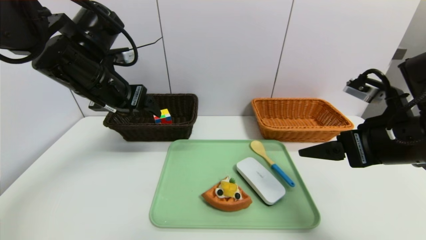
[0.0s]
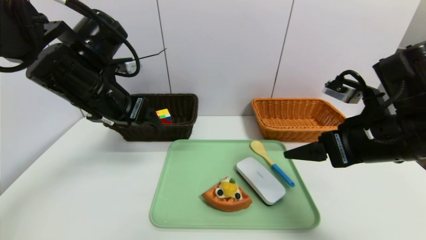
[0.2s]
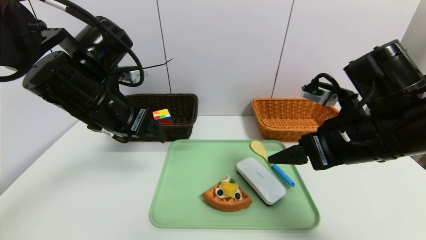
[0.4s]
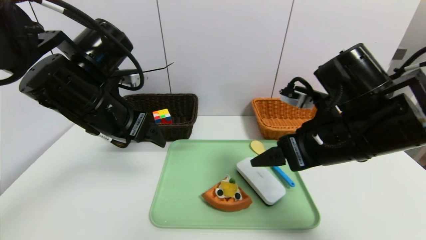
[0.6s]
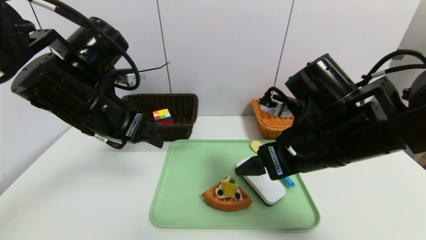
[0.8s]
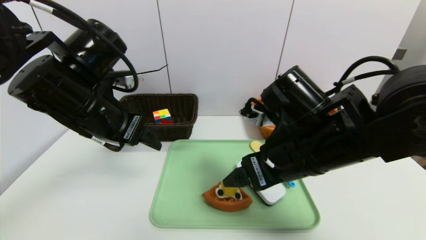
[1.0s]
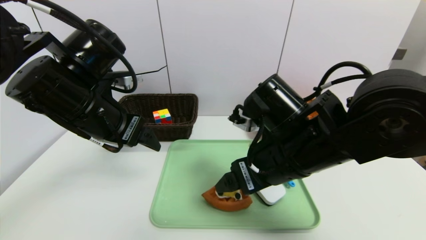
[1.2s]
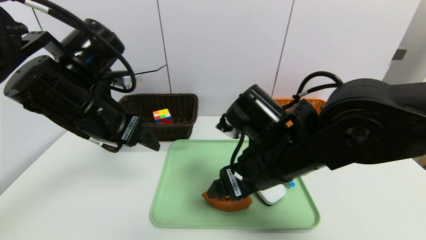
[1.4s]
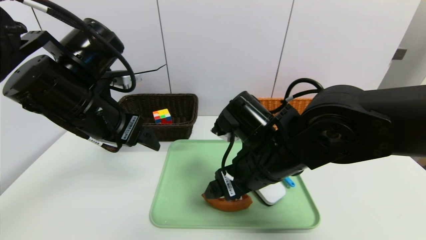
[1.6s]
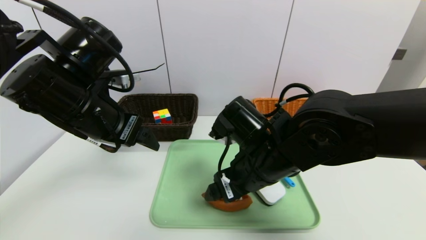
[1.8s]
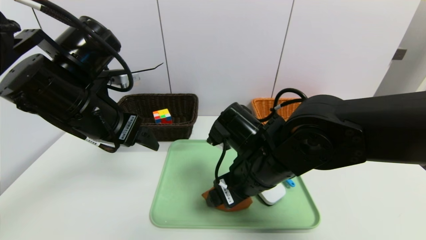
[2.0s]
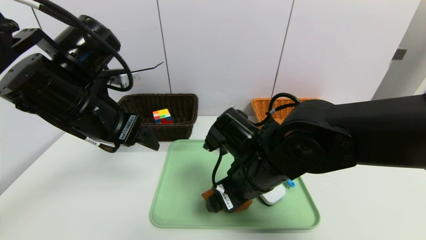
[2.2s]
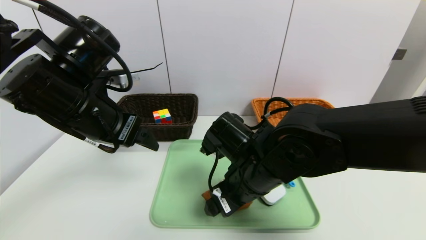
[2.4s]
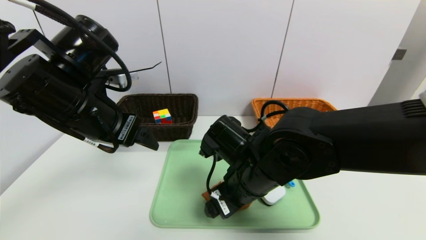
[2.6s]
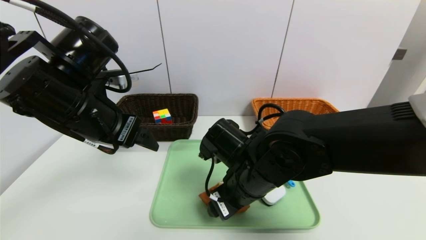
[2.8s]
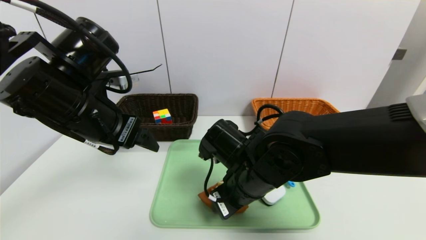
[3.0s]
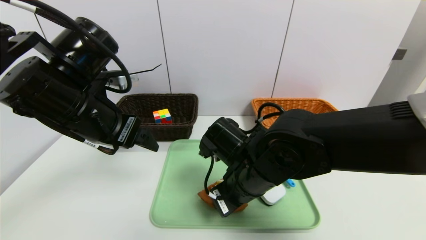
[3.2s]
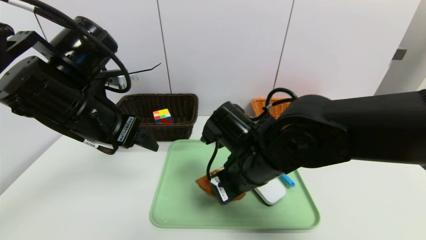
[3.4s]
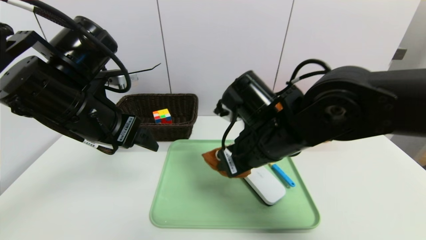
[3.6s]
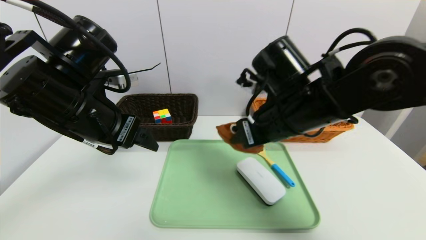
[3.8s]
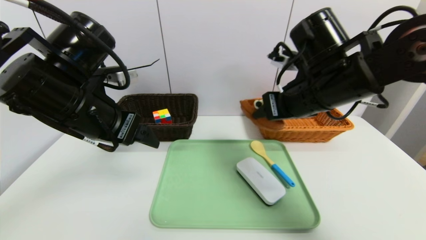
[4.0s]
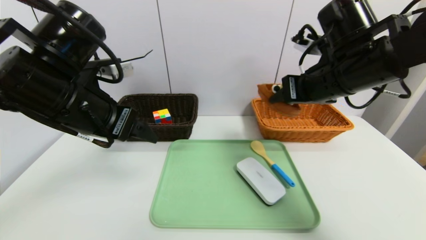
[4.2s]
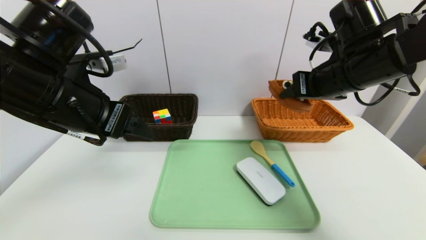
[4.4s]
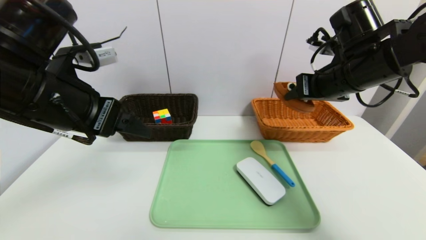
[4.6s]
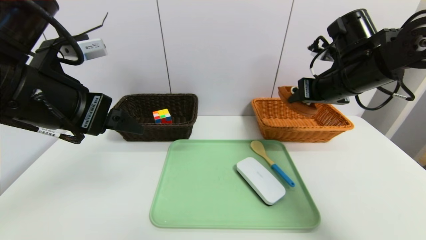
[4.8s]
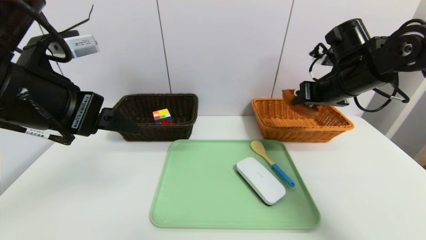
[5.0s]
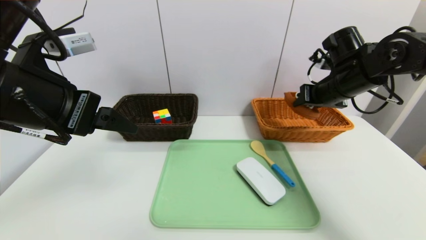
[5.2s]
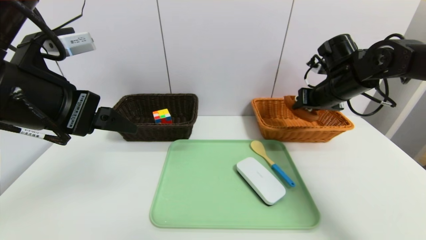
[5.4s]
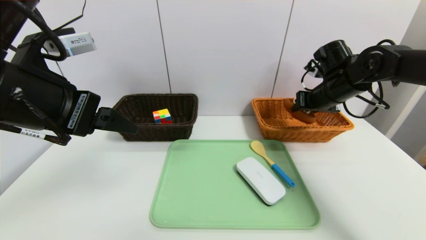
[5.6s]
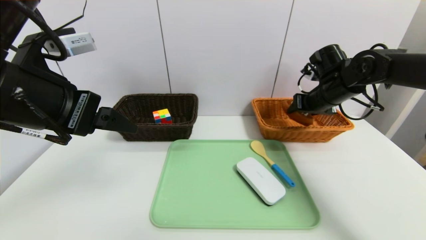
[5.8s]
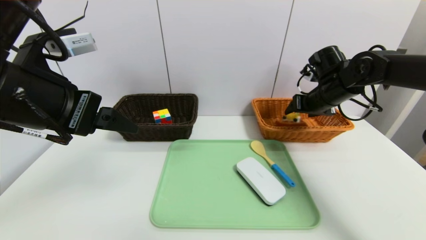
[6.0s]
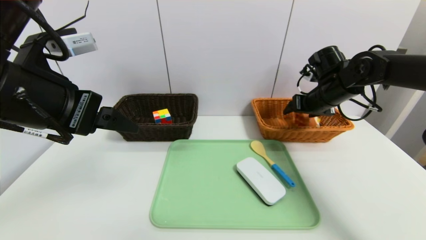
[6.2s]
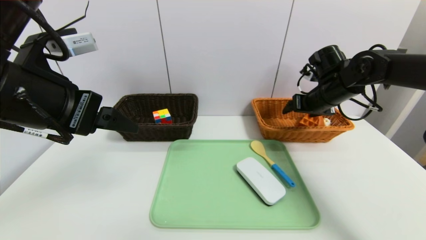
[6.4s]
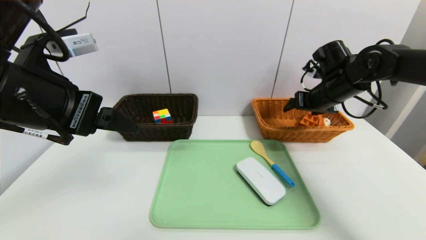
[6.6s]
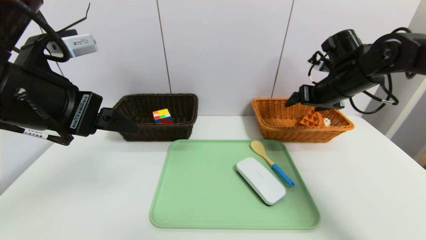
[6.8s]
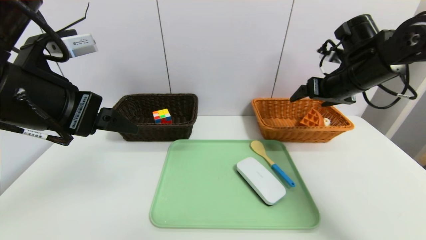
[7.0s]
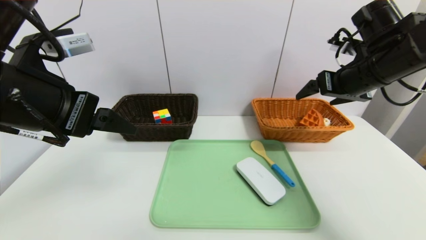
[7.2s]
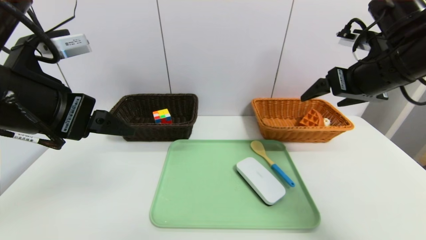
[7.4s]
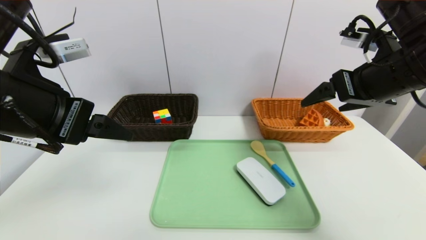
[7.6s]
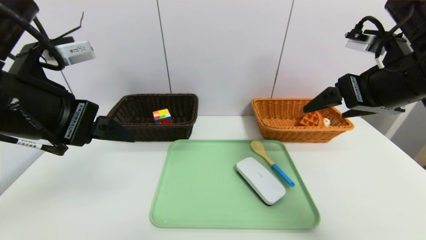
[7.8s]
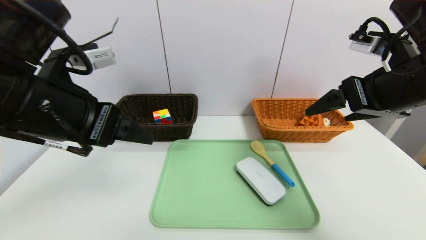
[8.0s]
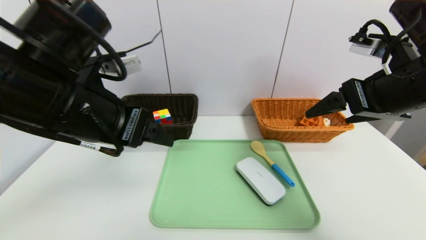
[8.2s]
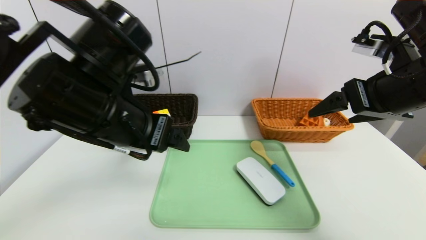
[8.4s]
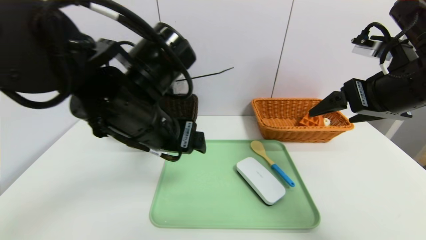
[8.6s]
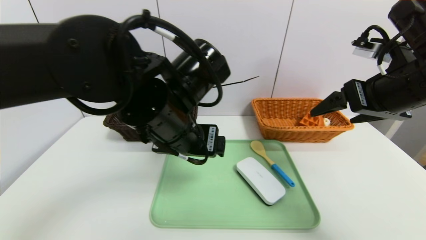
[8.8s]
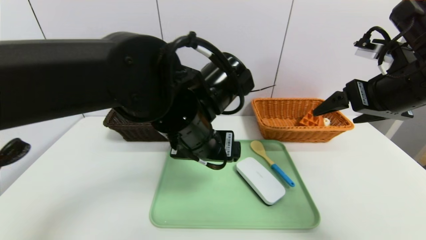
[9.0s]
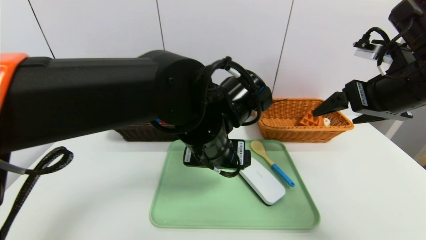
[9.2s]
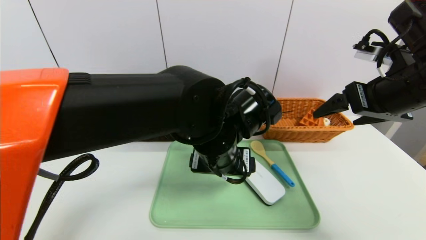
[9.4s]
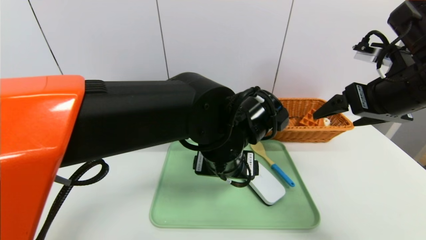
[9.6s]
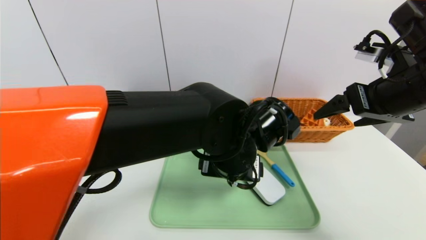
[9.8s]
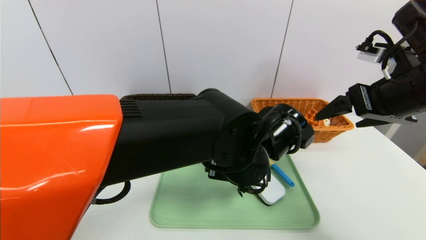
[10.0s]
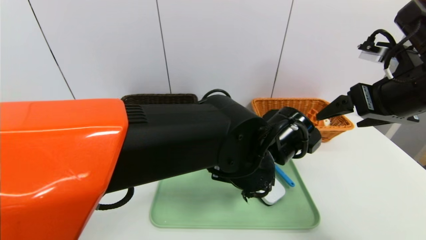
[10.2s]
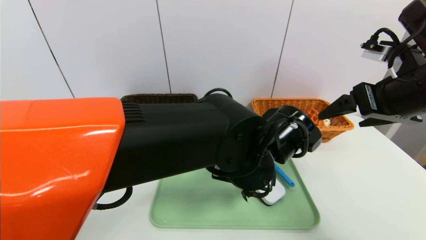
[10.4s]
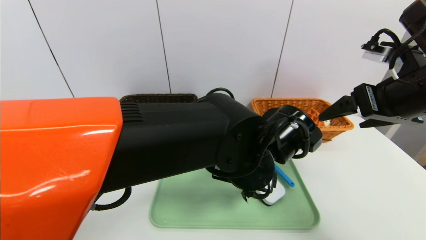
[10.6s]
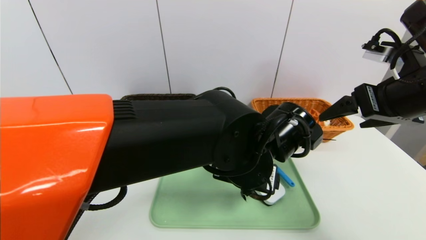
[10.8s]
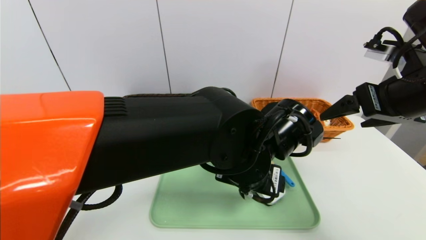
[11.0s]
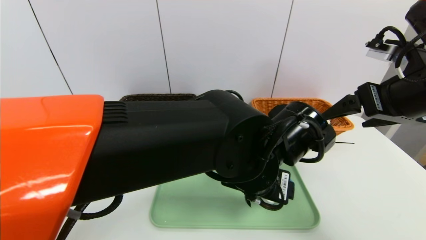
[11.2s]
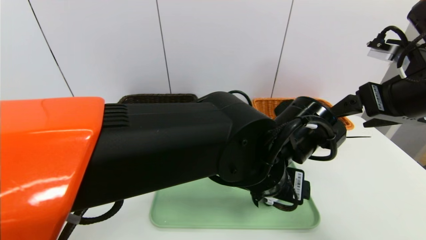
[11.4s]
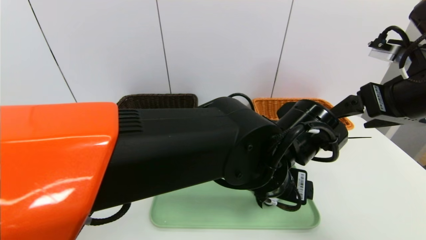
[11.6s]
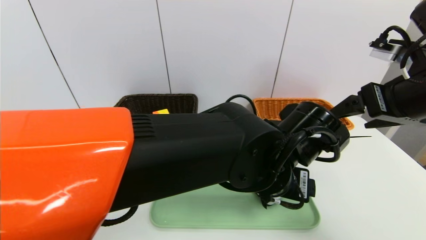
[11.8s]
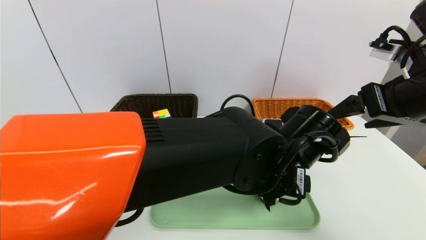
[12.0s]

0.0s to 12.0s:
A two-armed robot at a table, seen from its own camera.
Task of the whole recording: place the food in the right basket with the right gripper, and place the non food items in the left basket with the left gripper.
Step, 0.0s to 6.8s: Grasp the triangle cake and put it in the left basket.
0.0s to 1.6s: The right gripper is displaced to the left by some 15 cm, while the left gripper goes about 5 cm backward.
1.6s to 3.0s: The right gripper closes its fingers.
3.0s to 4.4s: The right gripper travels to the right, upward and forward by approximately 25 cm.
4.4s to 6.0s: The right gripper heads forward, downward and to the right, covering about 15 cm.
6.0s to 7.6s: The right gripper heads backward and upward, covering approximately 20 cm.
7.6s to 9.0s: The left gripper goes roughly 20 cm to the right and downward.
9.0s to 10.4s: The left gripper shifts roughly 10 cm to the right and downward.

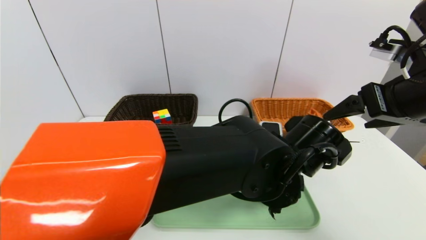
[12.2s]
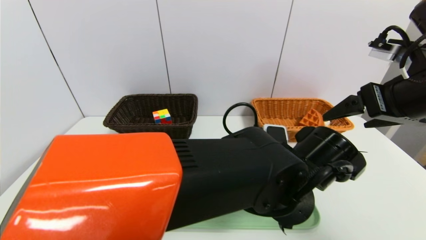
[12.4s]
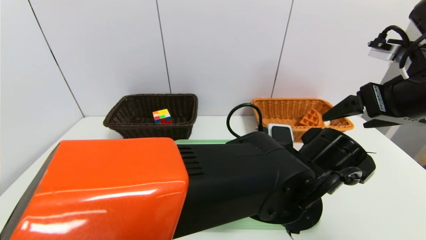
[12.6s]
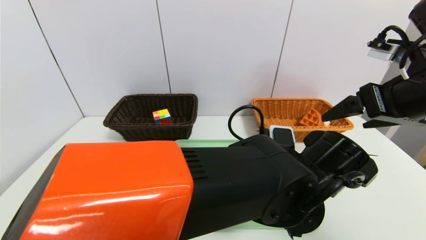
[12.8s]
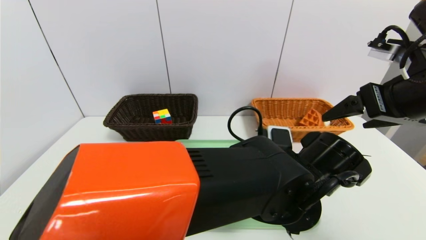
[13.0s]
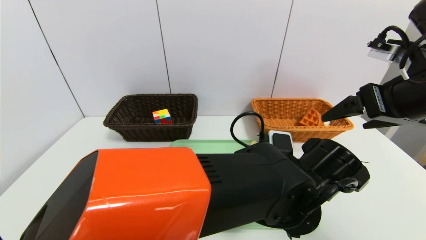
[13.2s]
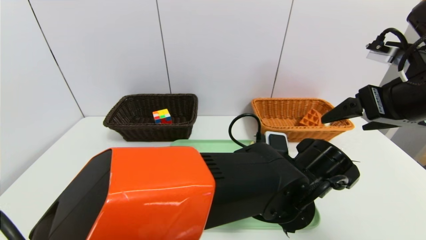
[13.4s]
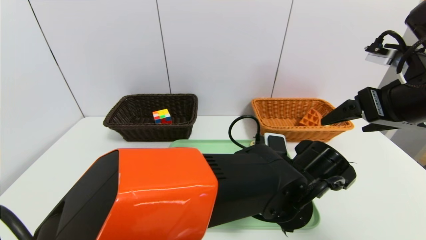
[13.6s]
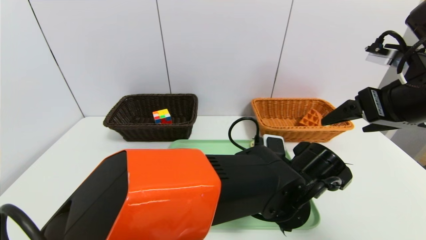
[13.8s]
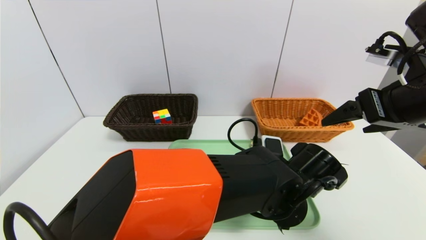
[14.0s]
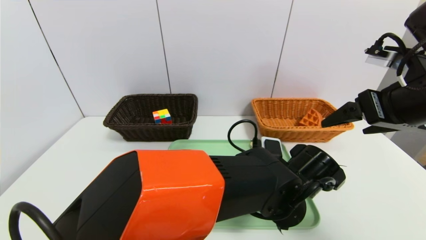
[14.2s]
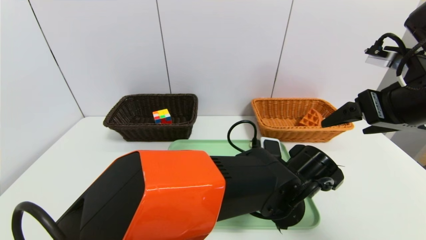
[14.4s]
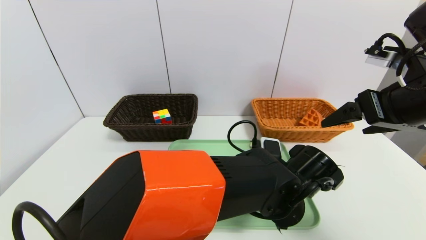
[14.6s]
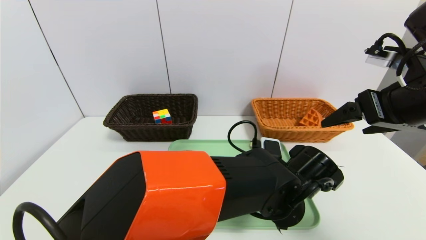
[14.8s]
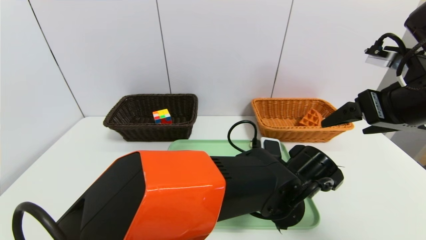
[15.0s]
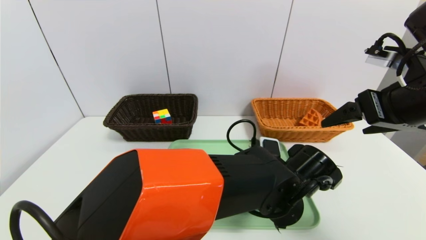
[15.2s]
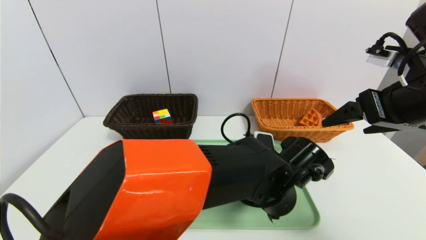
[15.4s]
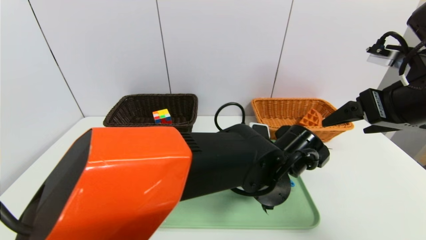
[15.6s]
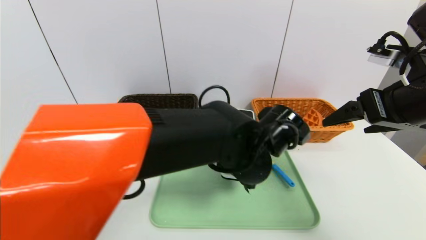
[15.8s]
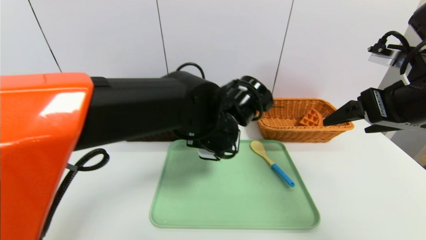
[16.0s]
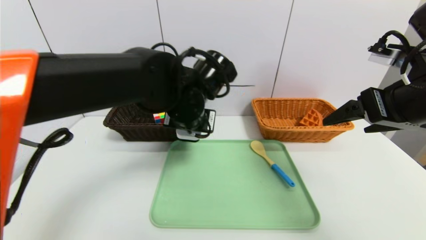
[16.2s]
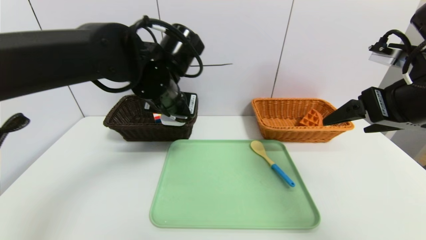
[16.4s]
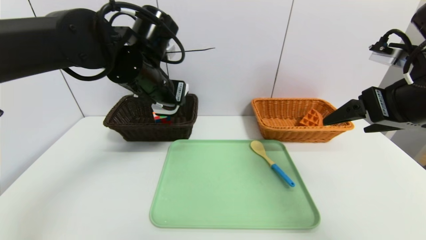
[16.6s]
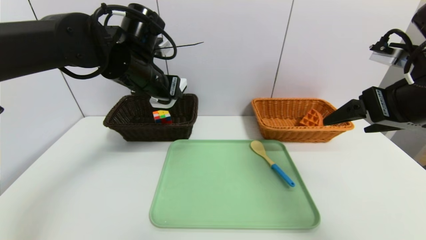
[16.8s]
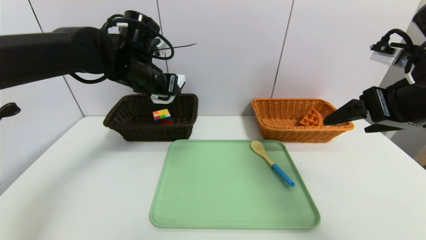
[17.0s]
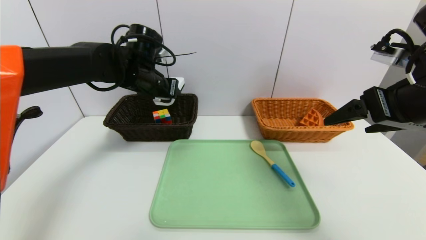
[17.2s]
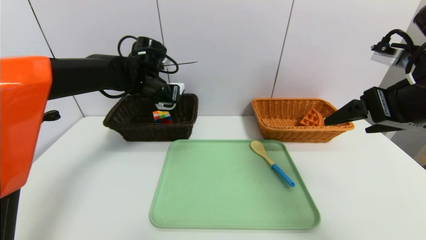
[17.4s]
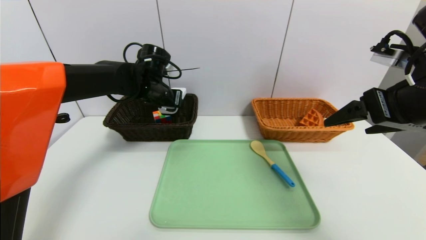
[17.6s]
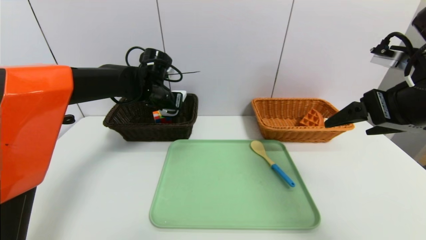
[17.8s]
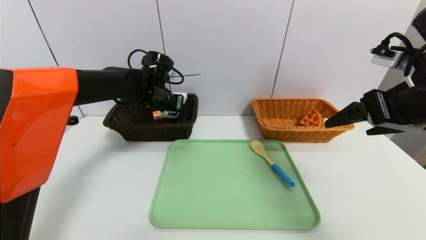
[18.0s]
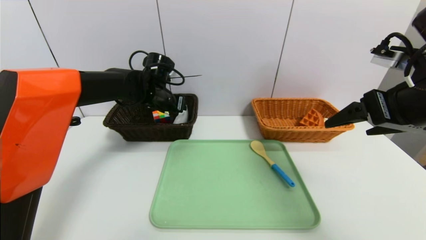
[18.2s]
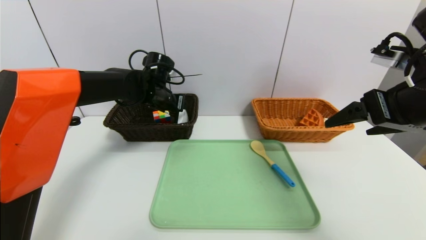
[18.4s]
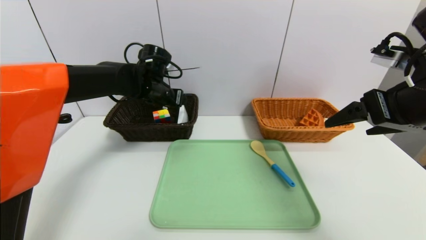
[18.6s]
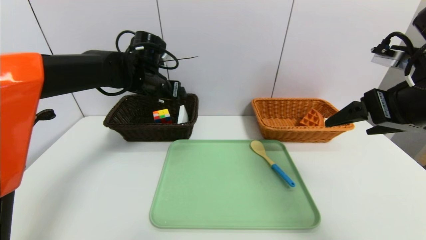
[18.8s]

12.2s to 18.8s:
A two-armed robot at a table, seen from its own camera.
Task of the whole recording: place the food in the right basket with the right gripper, and place the non food items in the left basket with the left gripper.
12.2s to 13.8s: The left gripper moves some 5 cm.
13.8s to 15.4s: The left gripper closes.
15.4s to 17.2s: The left gripper heads to the left, forward and upward, covering about 30 cm.
17.2s to 18.8s: The left gripper opens up.
